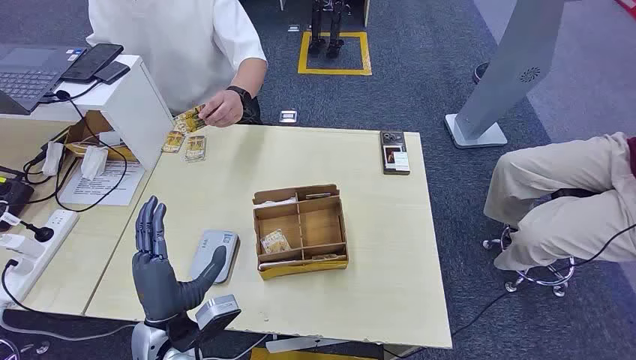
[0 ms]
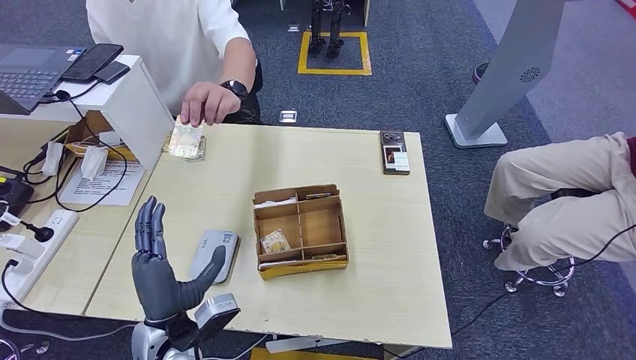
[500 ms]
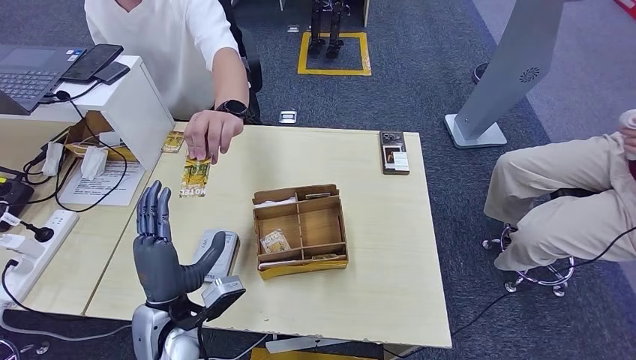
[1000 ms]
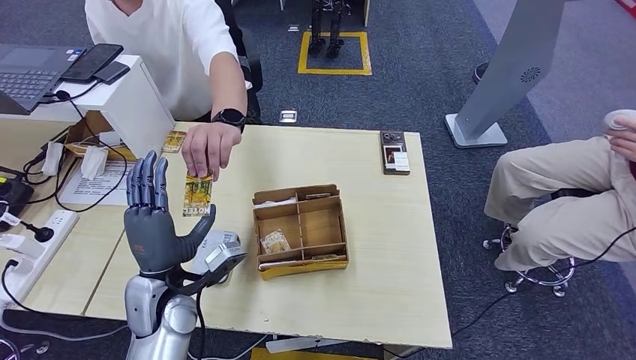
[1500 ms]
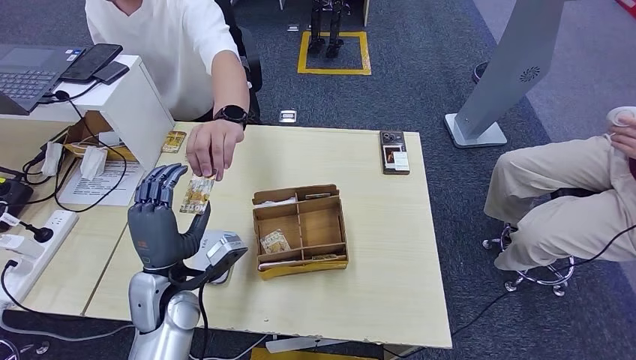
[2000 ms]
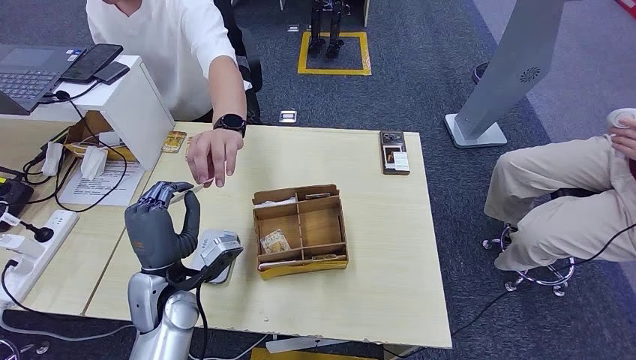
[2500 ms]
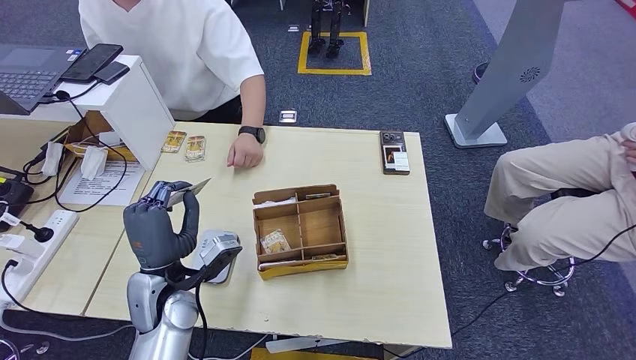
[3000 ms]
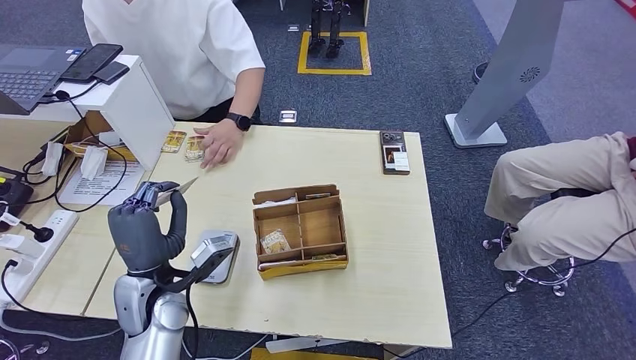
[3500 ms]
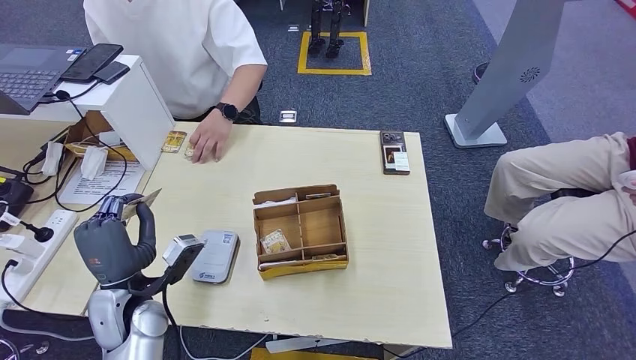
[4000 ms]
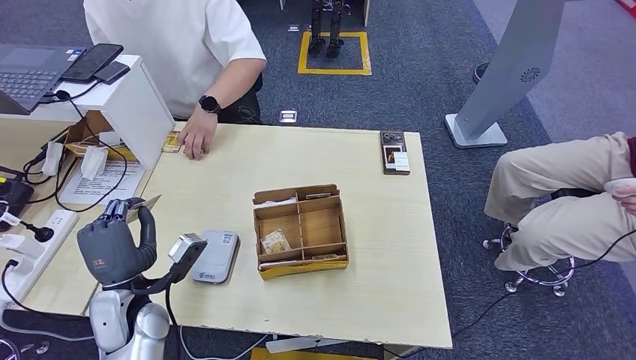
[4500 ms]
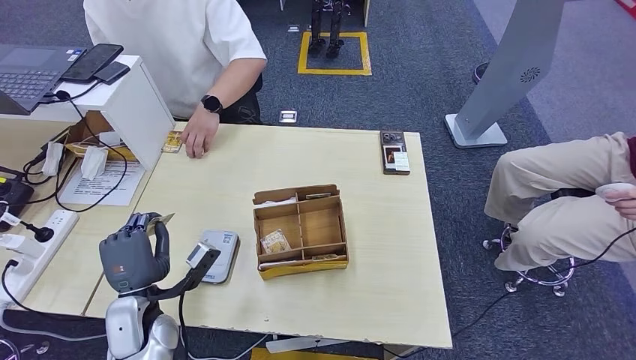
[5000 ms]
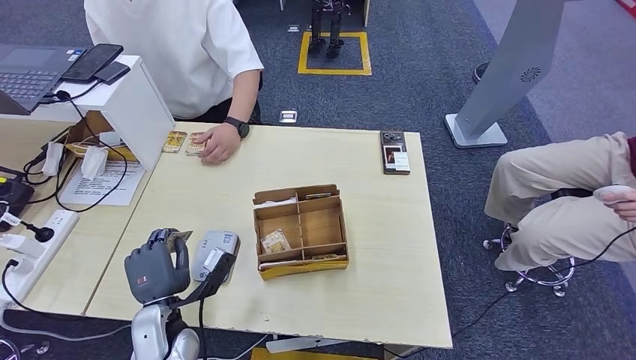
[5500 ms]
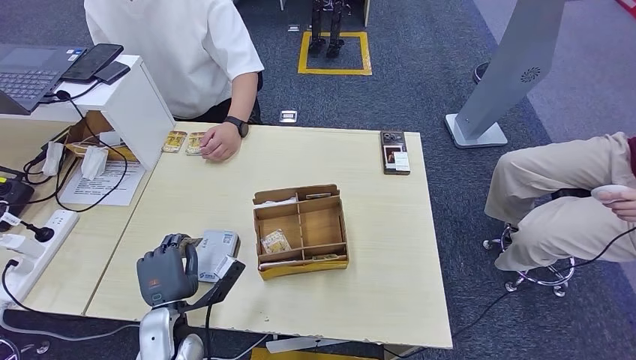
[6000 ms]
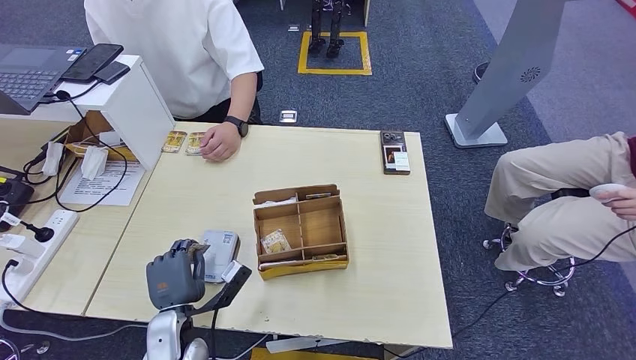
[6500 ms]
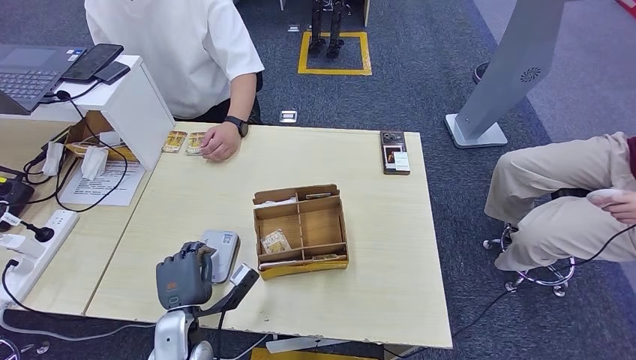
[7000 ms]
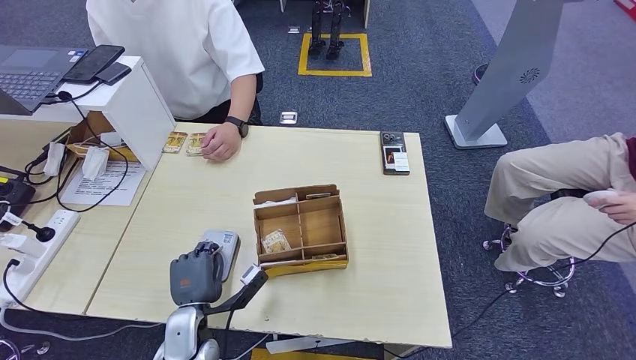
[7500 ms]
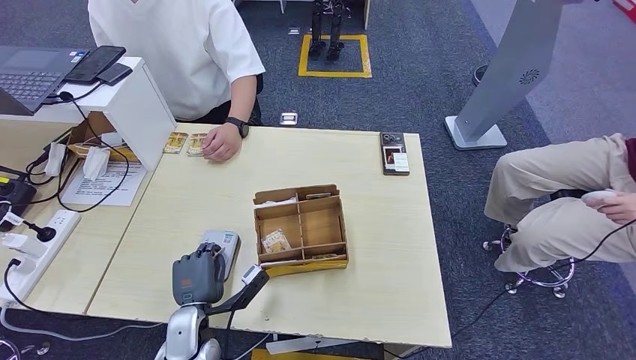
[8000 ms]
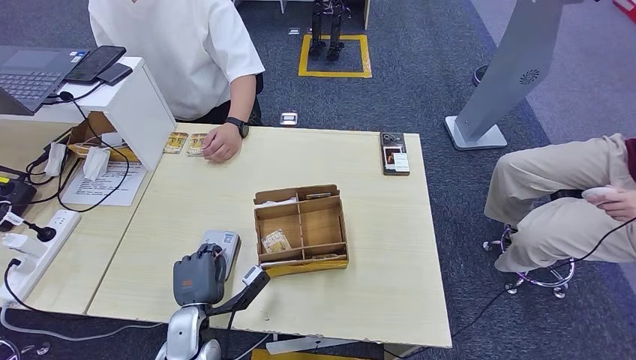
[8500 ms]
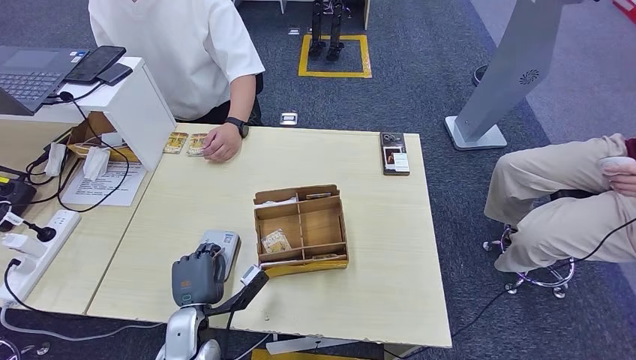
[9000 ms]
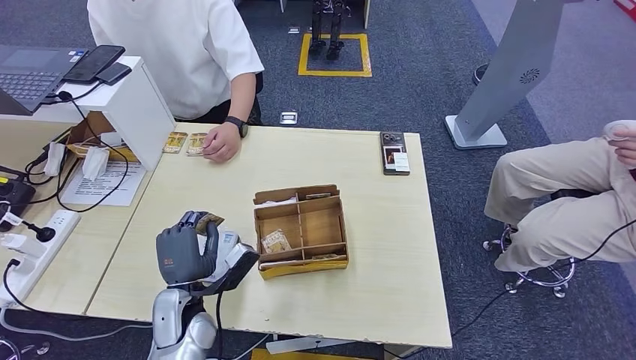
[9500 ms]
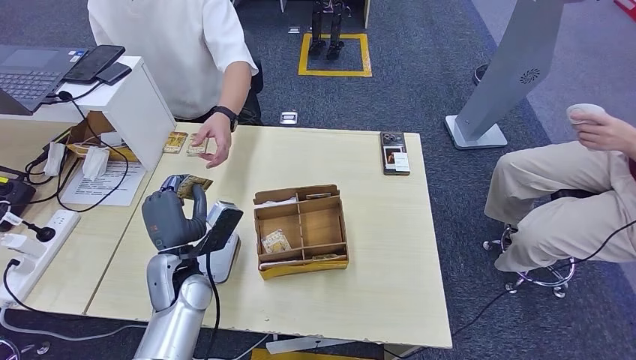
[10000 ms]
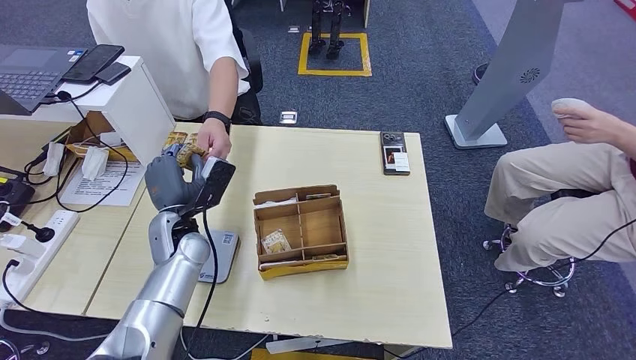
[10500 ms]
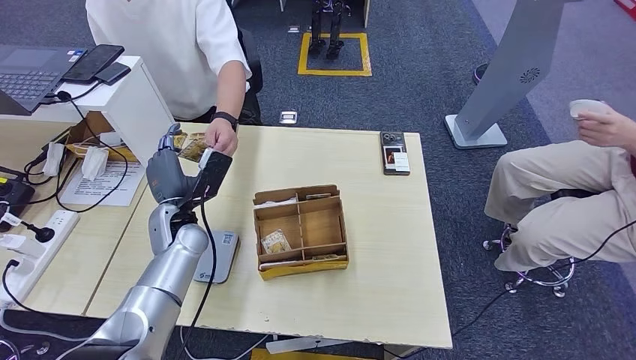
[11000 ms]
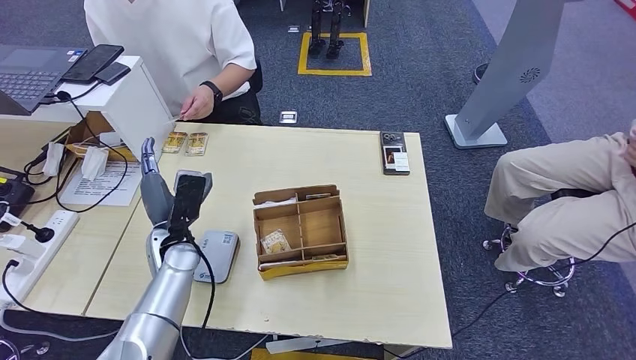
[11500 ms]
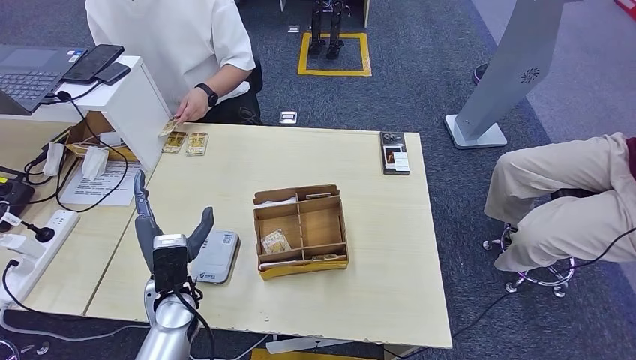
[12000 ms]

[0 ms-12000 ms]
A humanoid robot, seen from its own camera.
Step, 0 ms to 3000 ms: Take the ID card from the person's hand.
Step, 3500 ms to 7500 ms: Place the ID card on the card reader.
Step, 8500 ms to 11000 ms: Hand the ID card to the person.
2000 ms to 4000 ms: The left hand goes some 5 cm to the left.
4000 ms to 6000 ms: The left hand heads downward, covering about 10 cm.
6000 ms to 8000 ms: The hands move only a little.
8000 ms to 10000 ms: The left hand moves upward and forward, about 15 cm.
10000 ms to 12000 ms: The left hand goes forward and returns, roughly 10 cm each way.

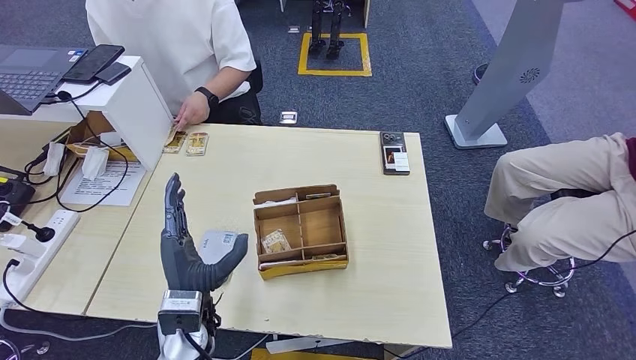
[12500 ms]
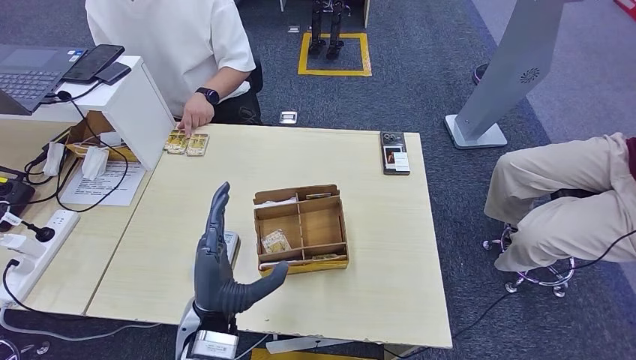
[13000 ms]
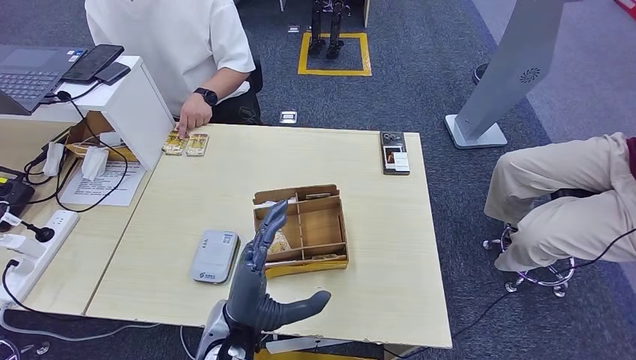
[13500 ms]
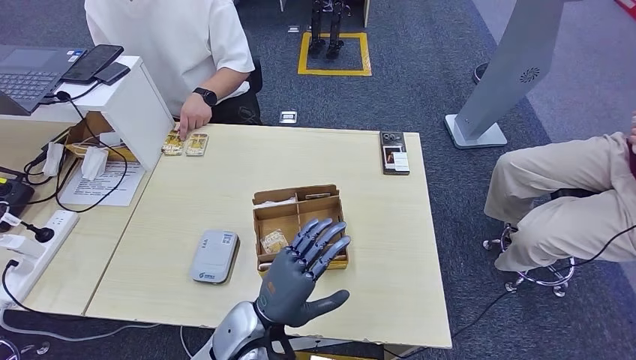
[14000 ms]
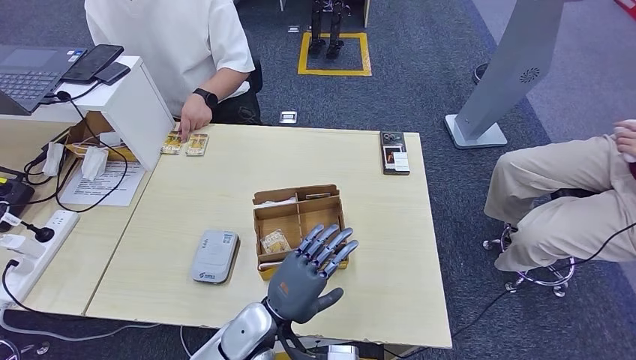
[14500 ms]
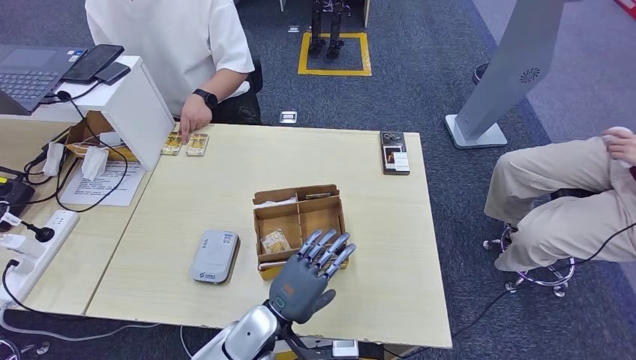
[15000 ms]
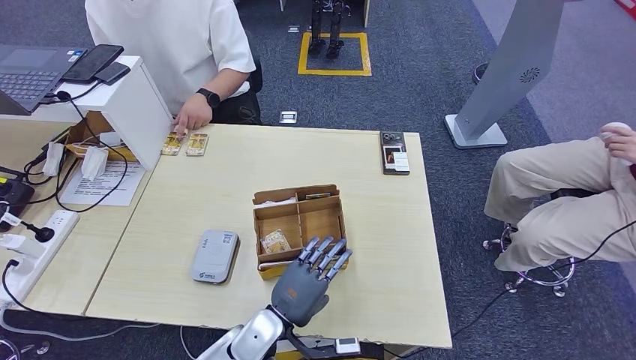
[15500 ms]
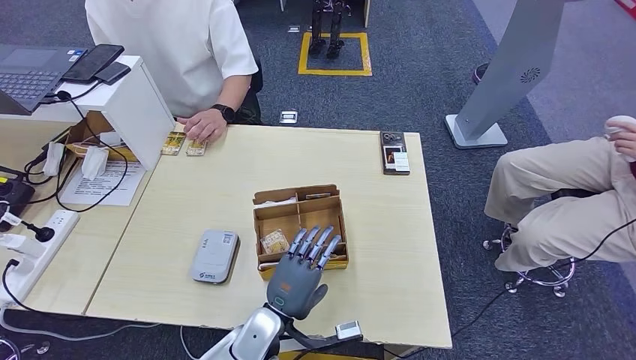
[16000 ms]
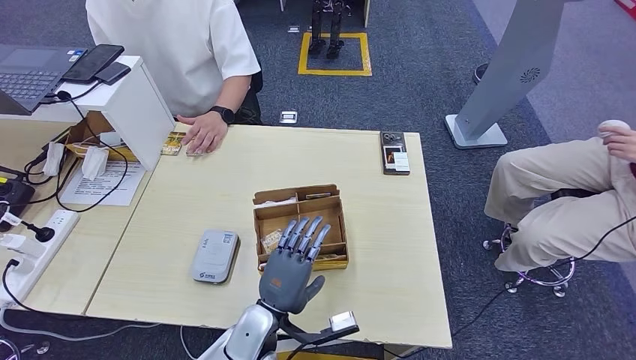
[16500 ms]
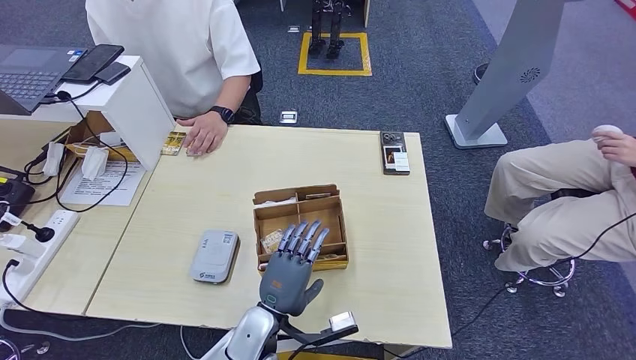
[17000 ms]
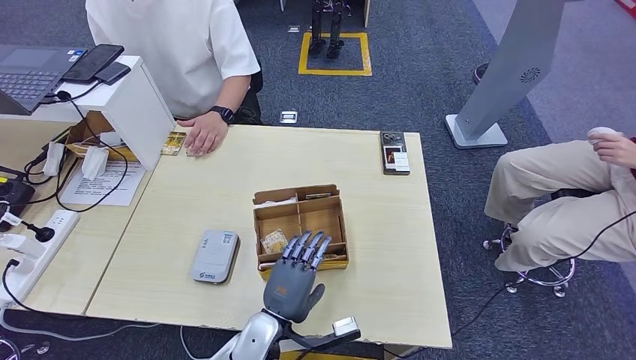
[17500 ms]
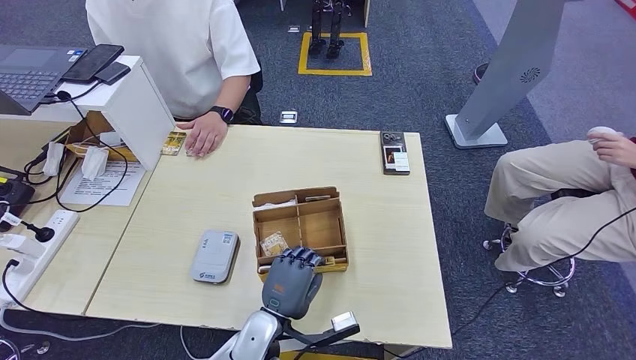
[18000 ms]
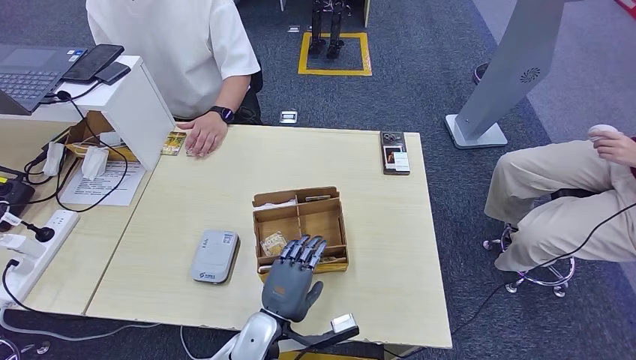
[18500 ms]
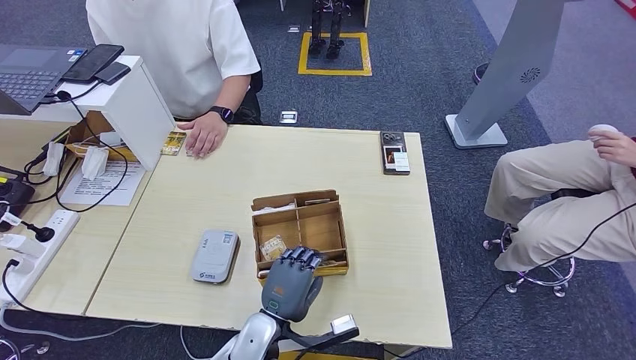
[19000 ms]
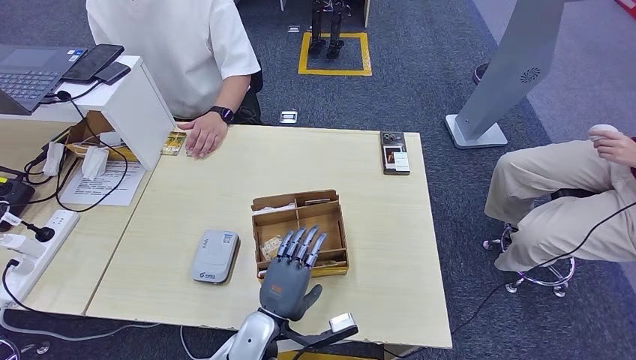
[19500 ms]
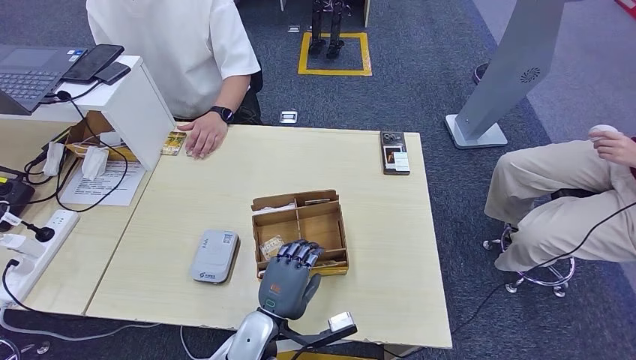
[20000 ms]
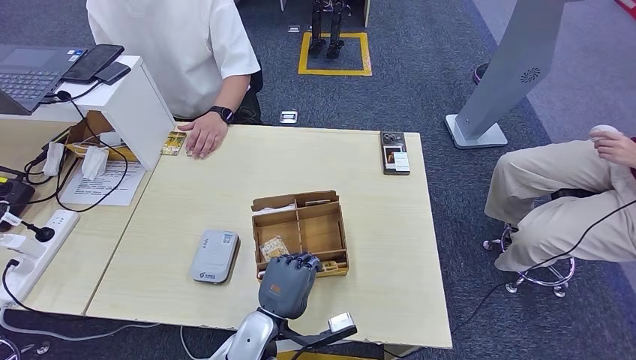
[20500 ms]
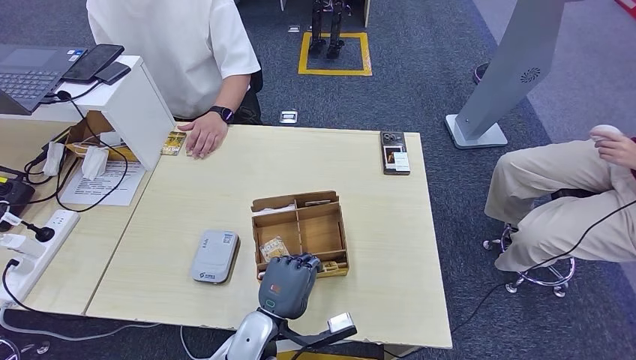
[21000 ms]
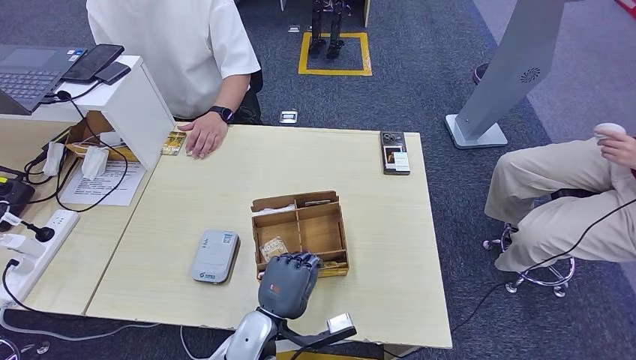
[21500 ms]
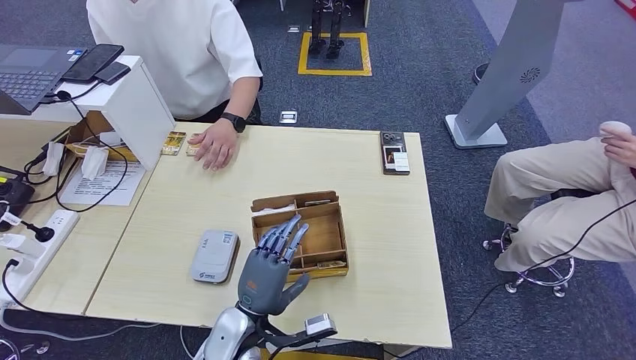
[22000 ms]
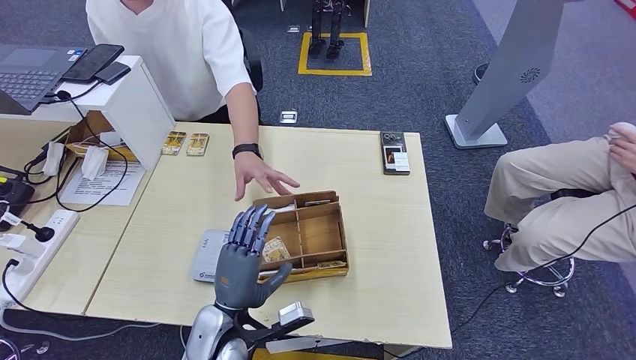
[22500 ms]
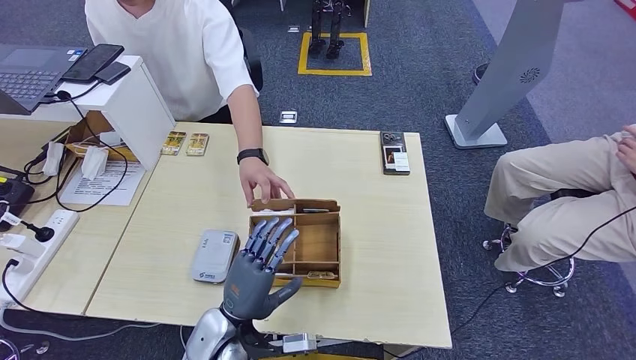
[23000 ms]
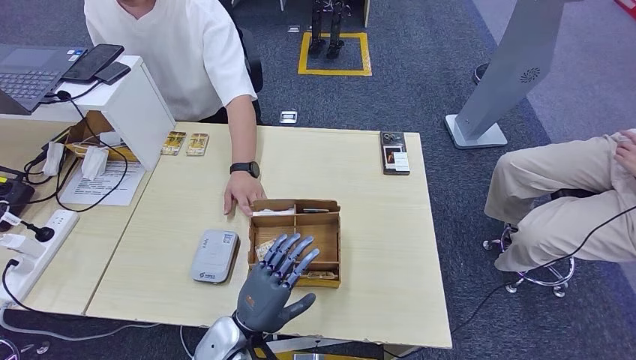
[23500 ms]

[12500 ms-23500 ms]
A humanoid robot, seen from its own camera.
12500 ms to 14500 ms: The left hand travels to the right by approximately 10 cm.
16000 ms to 18000 ms: There are only small adjustments of the hands.
18000 ms to 21500 ms: Neither hand changes place.
